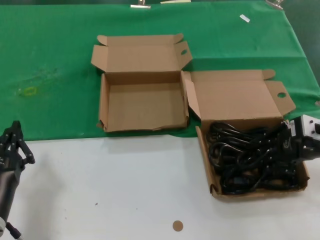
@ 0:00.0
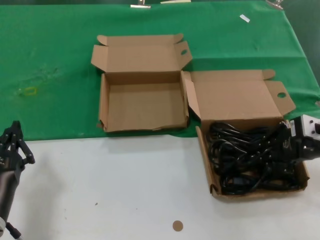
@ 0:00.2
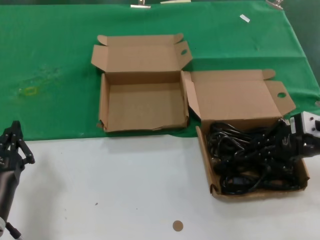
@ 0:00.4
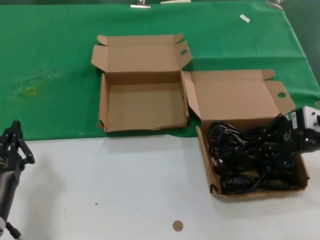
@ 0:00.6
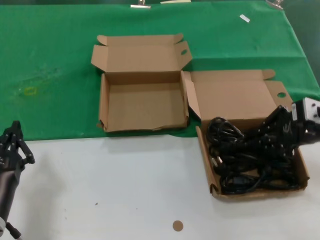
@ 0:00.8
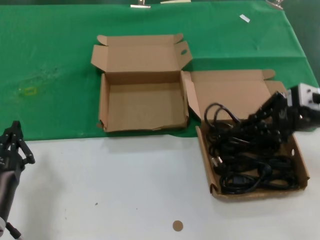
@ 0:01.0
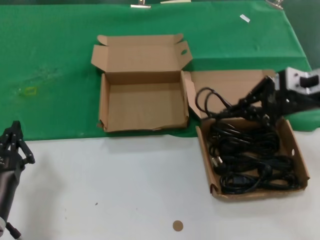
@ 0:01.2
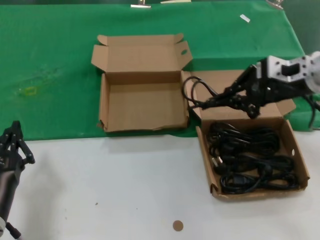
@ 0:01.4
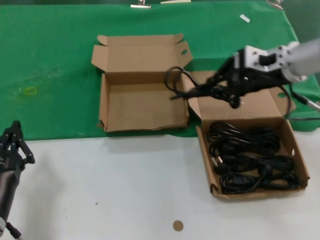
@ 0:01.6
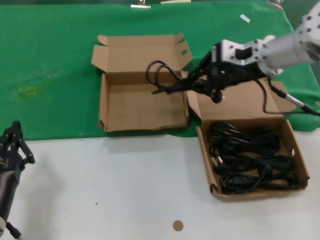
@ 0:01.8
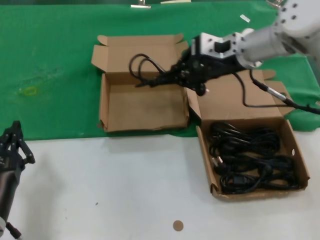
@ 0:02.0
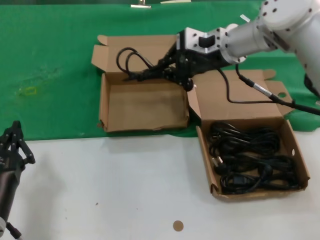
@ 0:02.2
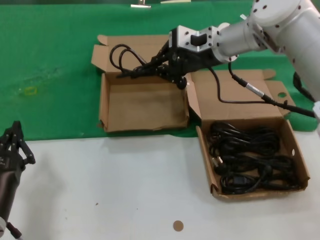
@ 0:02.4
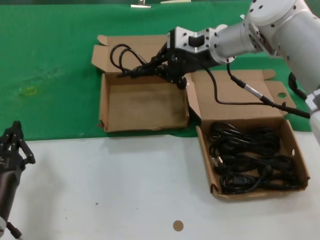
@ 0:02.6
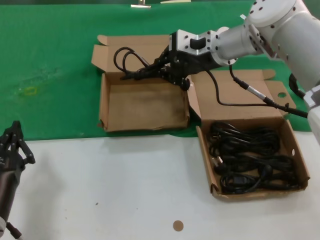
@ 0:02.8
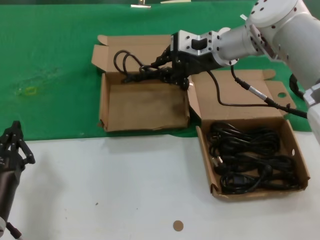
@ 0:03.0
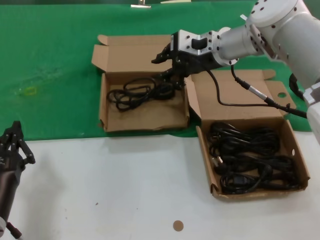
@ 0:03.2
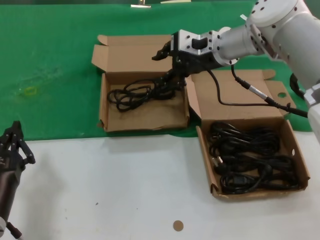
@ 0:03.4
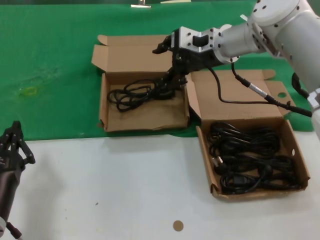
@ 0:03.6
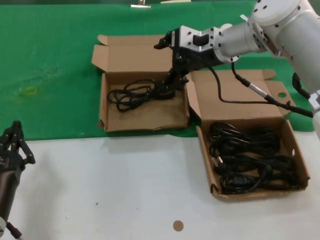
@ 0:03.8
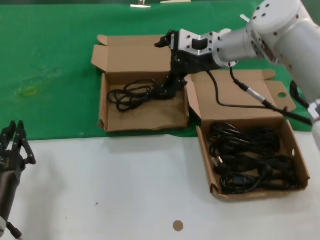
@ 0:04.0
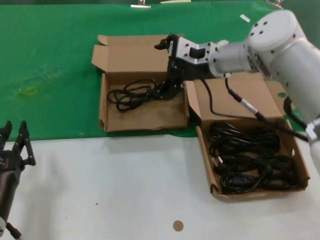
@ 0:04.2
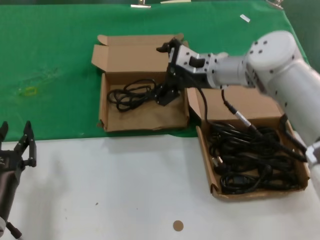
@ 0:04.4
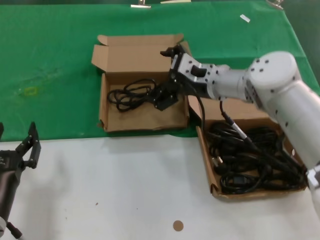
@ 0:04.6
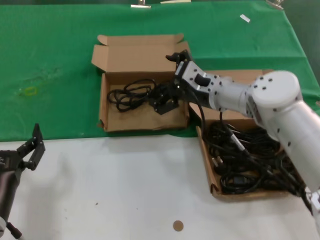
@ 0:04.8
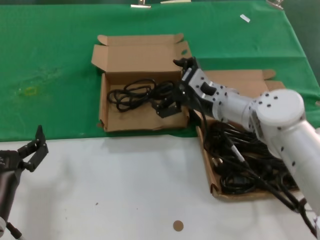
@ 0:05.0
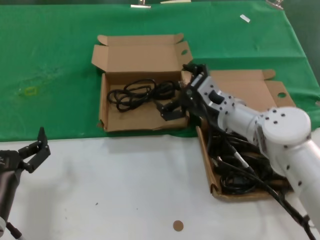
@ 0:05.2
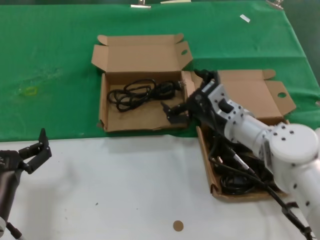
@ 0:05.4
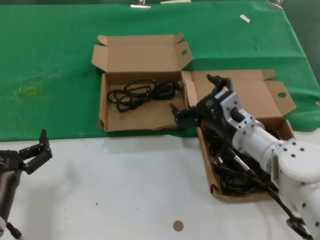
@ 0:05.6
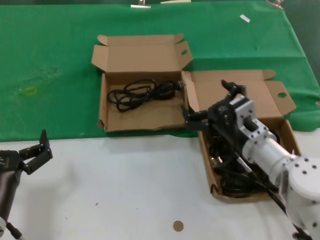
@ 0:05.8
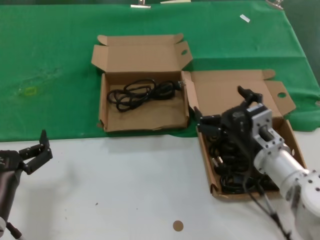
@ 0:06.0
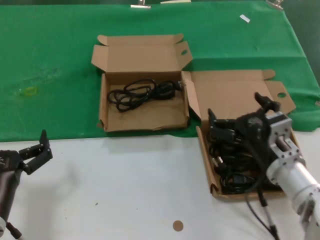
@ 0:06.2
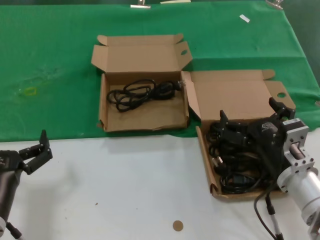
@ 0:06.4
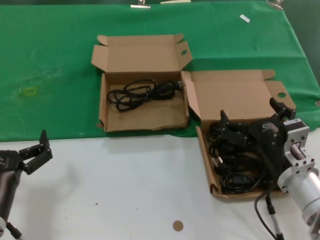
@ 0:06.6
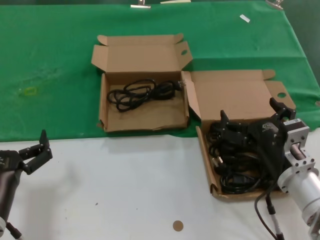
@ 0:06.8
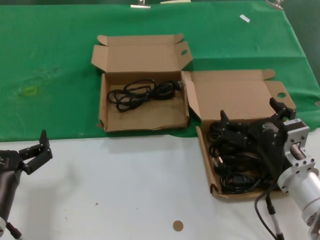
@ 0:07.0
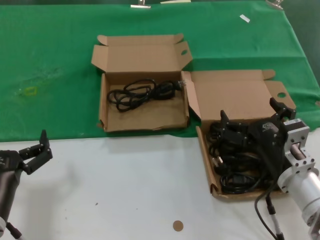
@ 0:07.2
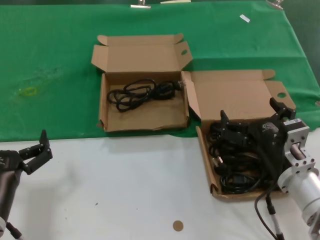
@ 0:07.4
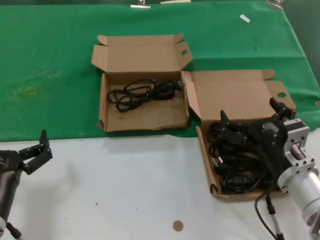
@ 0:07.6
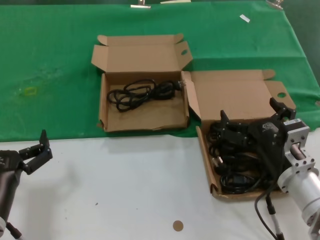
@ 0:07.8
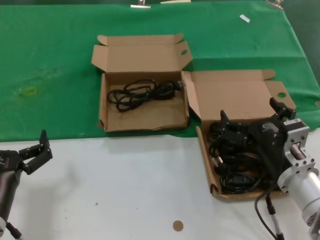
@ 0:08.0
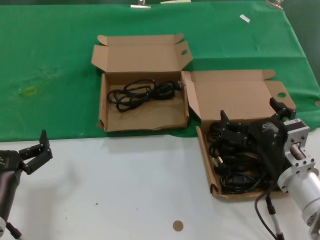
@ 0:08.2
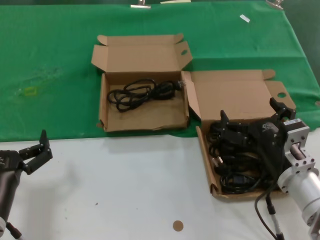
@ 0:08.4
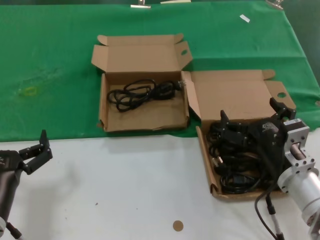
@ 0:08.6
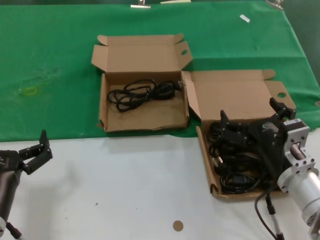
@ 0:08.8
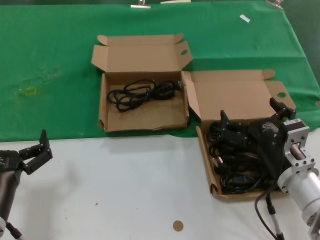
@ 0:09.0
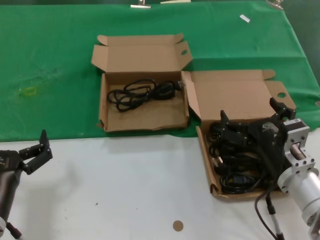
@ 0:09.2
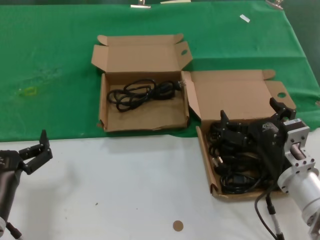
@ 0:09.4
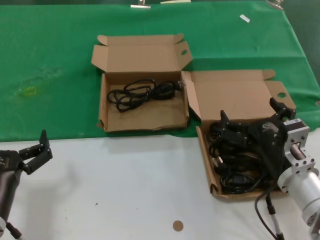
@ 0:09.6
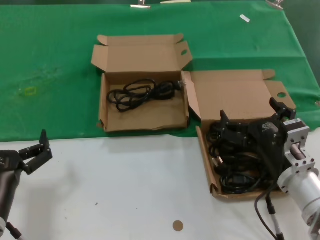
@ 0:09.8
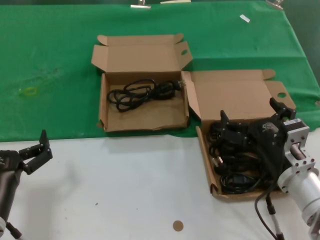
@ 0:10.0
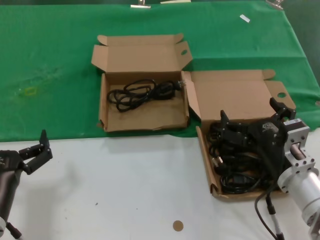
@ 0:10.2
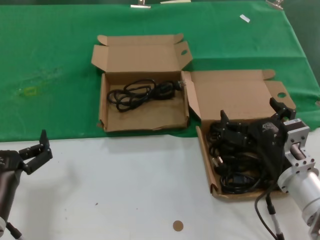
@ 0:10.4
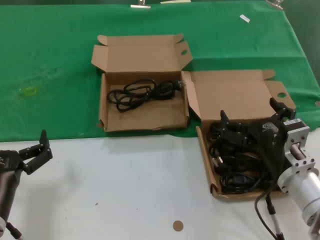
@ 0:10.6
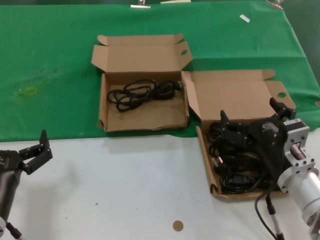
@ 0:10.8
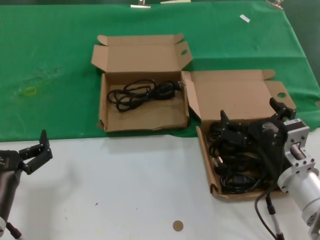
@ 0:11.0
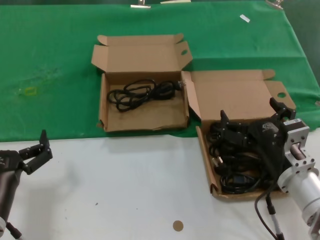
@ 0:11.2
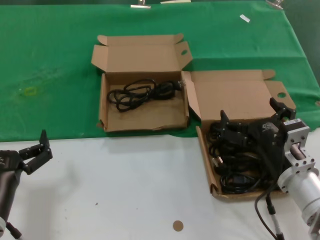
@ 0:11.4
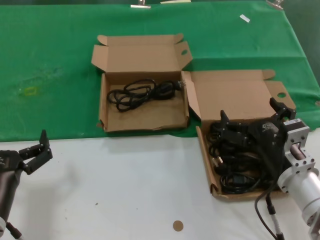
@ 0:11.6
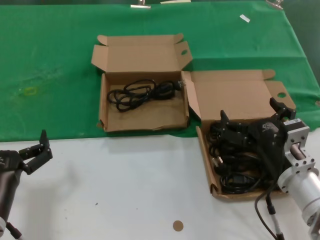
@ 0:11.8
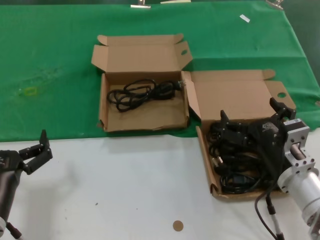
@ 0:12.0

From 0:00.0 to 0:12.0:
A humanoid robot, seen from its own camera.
Task of the whole recording: take the parts from the box containing them and put them into an empty box.
Step, from 0:00.4 to 0:03.2: Place the data cable in the another box.
From 0:00.0 to 0:01.6: The right hand is displaced forward, upward and to the left by roughly 15 cm.
From 0:01.6 to 0:03.0: The right hand moves to the left and forward, approximately 15 cm.
From 0:03.0 to 0:04.4: The right hand travels downward by roughly 5 cm.
From 0:04.4 to 0:06.0: The right hand is displaced backward and downward by about 25 cm.
From 0:06.0 to 0:07.6: The right hand moves backward, roughly 5 cm.
From 0:07.6 to 0:12.0: The two hands keep their place.

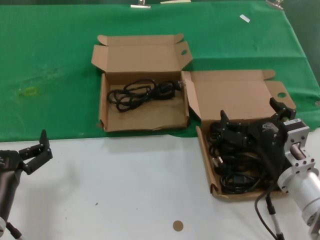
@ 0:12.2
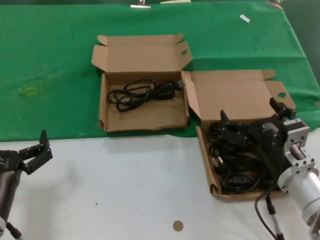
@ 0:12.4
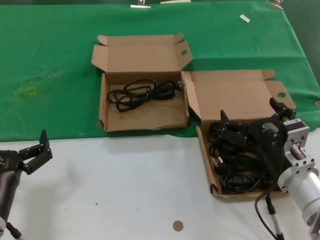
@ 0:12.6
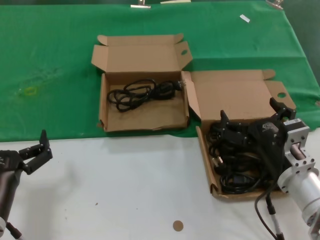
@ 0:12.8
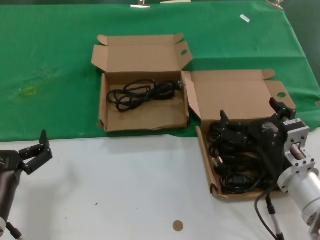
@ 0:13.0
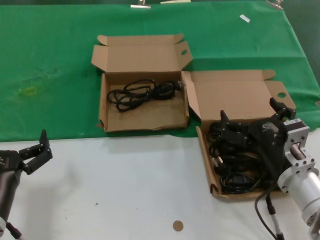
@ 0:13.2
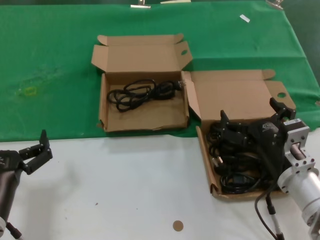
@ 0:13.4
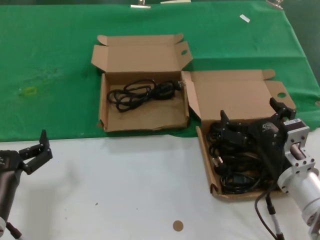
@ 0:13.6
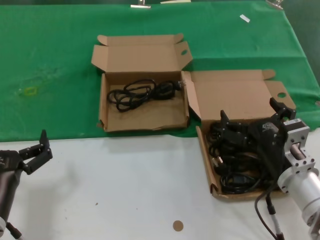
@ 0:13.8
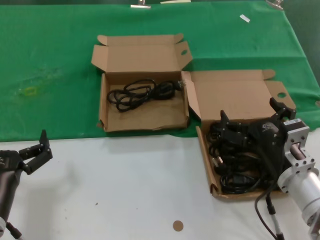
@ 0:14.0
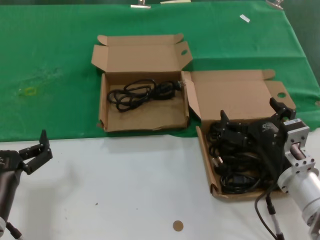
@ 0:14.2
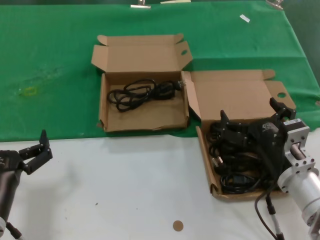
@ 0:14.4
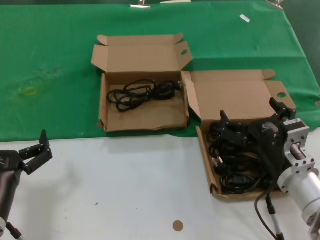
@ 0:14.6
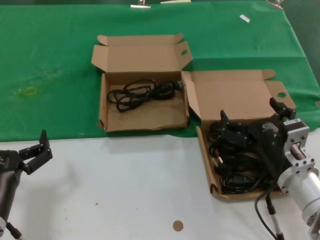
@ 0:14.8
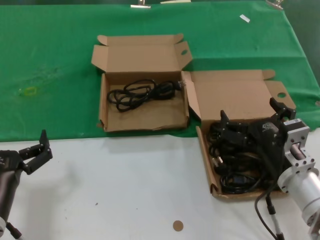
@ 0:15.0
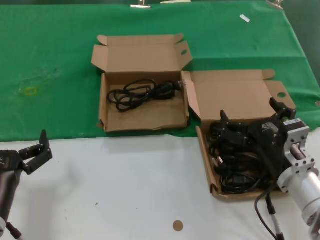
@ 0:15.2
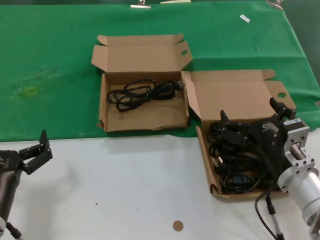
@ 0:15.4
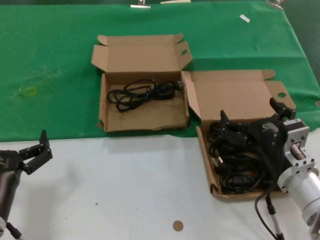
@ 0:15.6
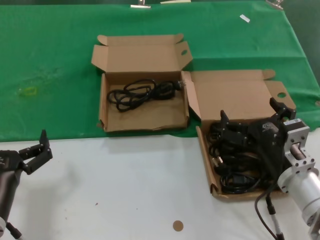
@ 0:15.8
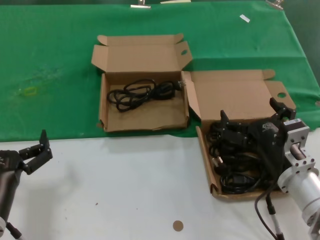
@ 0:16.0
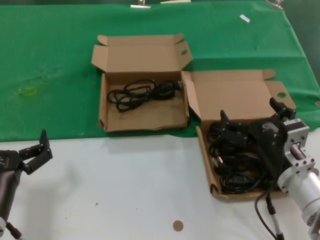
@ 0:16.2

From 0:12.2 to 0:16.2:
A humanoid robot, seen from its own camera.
Task of the whole recording: take the parts from the box containing them and put them into an empty box.
From 0:12.2 to 0:16.2: Neither hand changes place.
